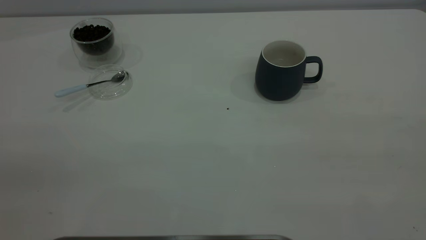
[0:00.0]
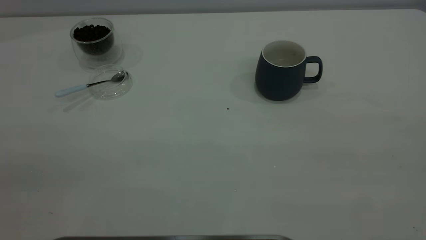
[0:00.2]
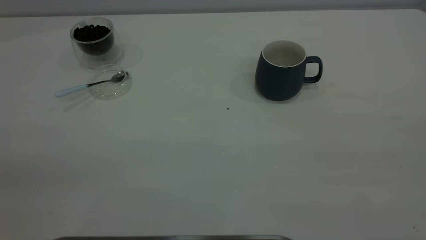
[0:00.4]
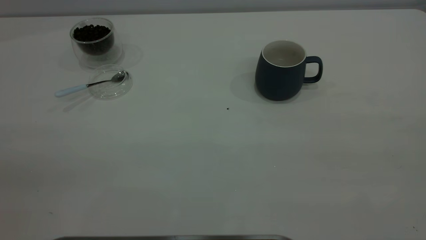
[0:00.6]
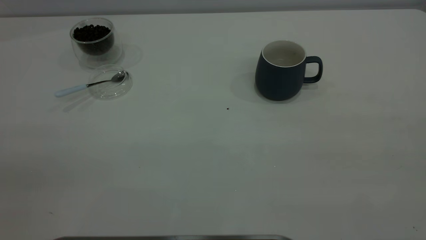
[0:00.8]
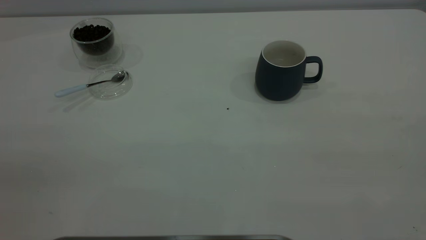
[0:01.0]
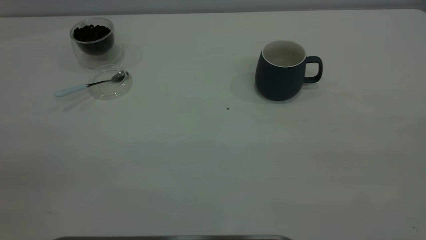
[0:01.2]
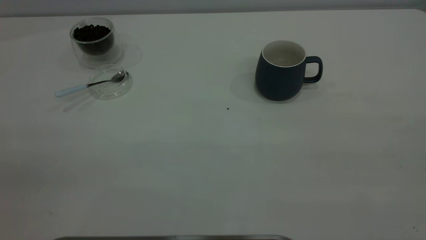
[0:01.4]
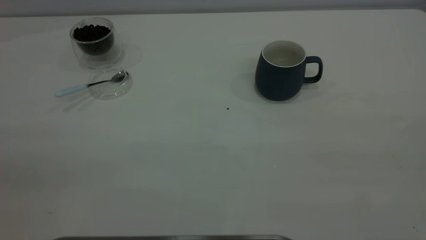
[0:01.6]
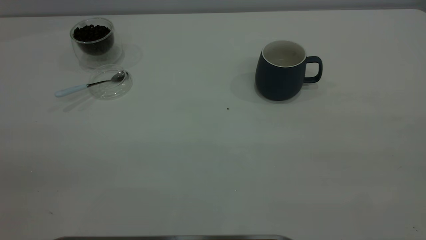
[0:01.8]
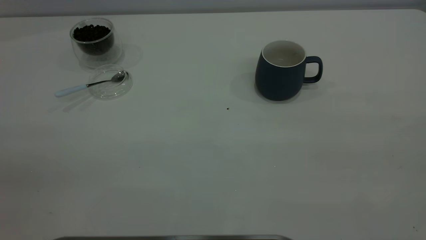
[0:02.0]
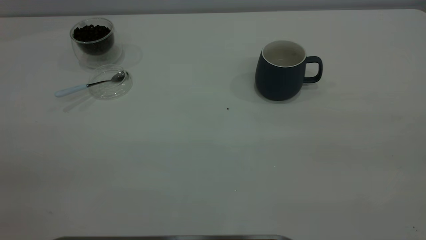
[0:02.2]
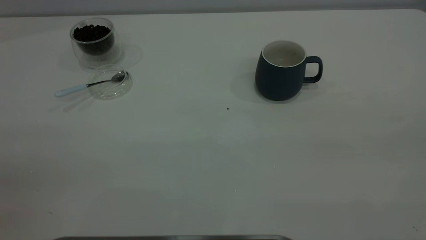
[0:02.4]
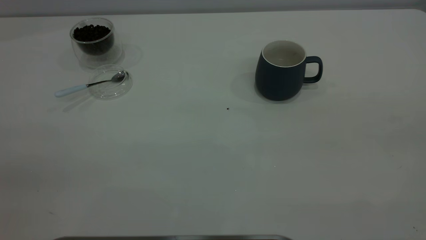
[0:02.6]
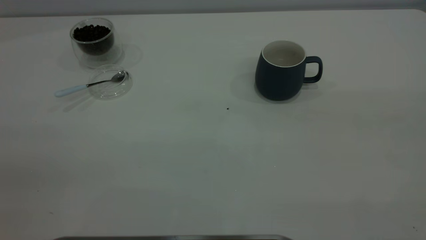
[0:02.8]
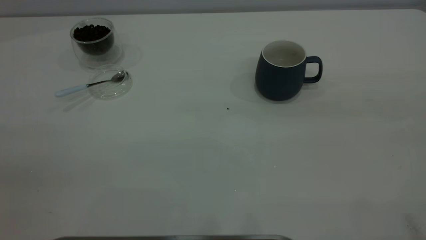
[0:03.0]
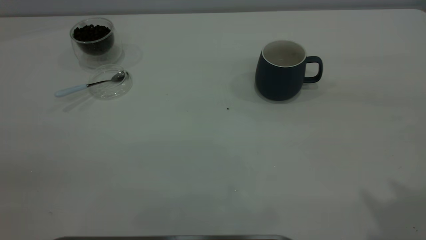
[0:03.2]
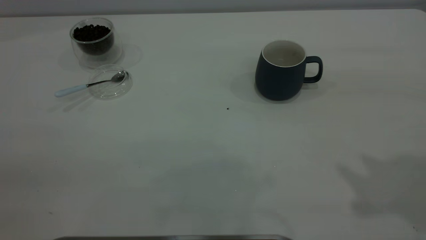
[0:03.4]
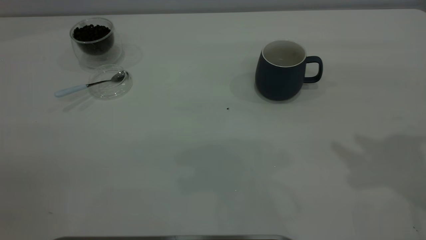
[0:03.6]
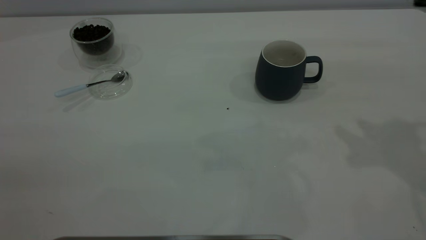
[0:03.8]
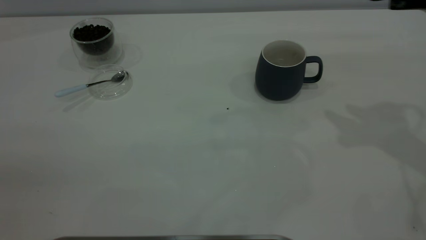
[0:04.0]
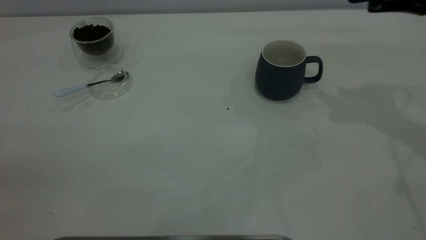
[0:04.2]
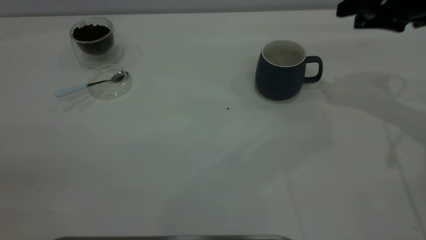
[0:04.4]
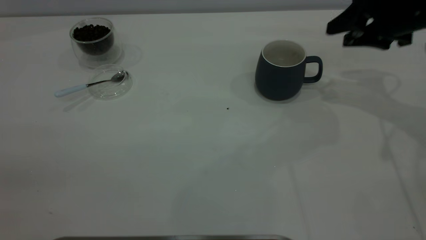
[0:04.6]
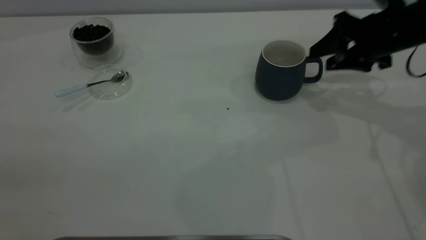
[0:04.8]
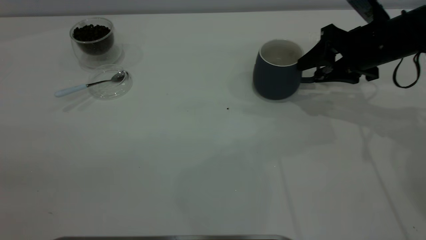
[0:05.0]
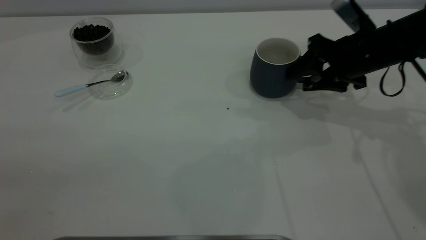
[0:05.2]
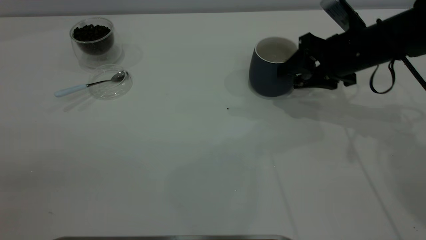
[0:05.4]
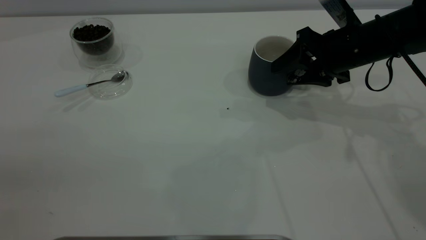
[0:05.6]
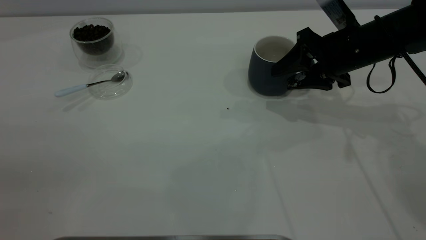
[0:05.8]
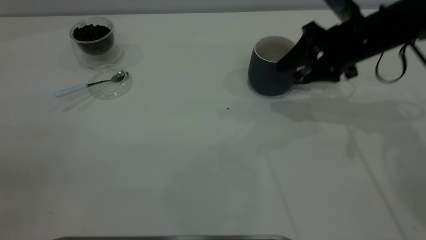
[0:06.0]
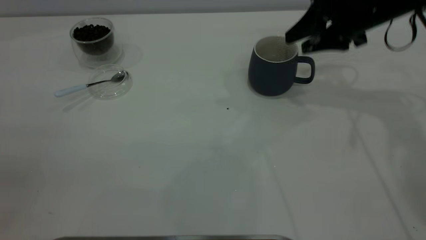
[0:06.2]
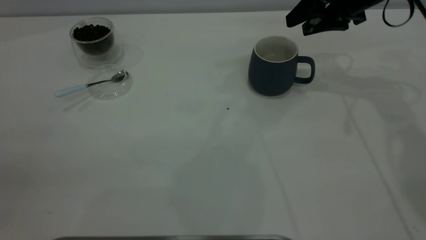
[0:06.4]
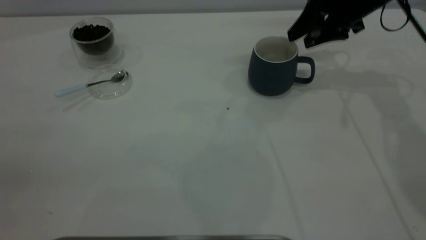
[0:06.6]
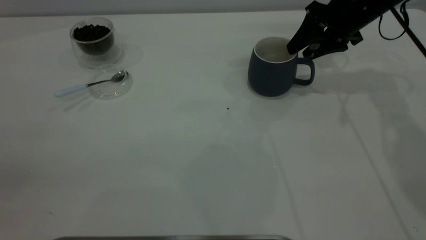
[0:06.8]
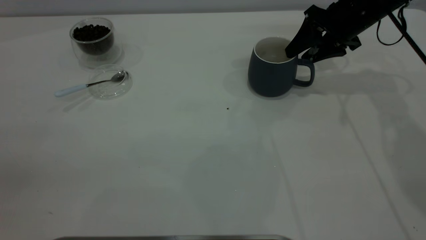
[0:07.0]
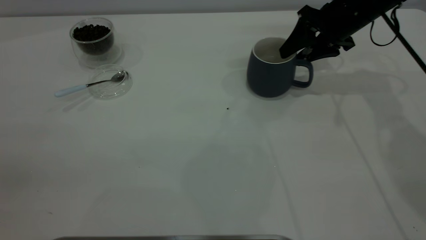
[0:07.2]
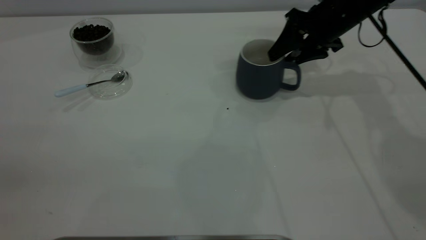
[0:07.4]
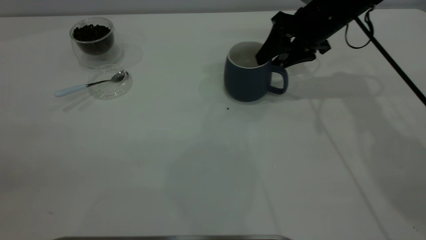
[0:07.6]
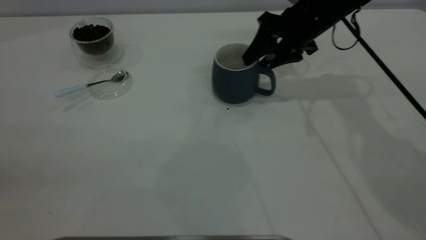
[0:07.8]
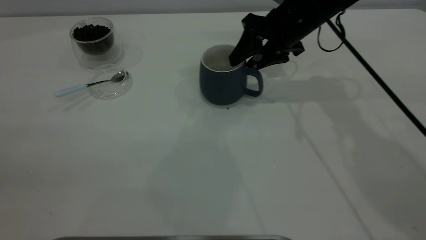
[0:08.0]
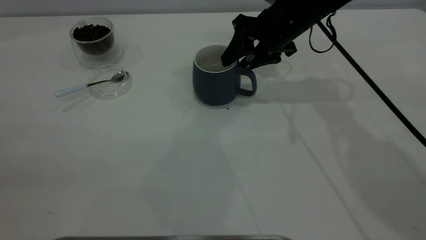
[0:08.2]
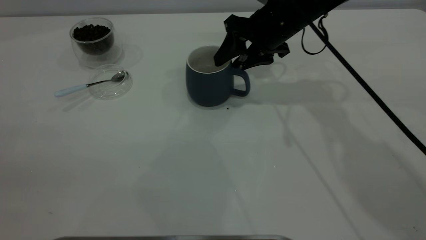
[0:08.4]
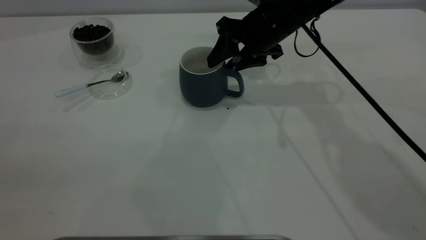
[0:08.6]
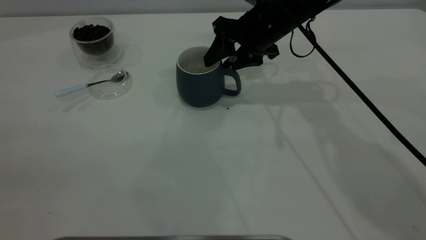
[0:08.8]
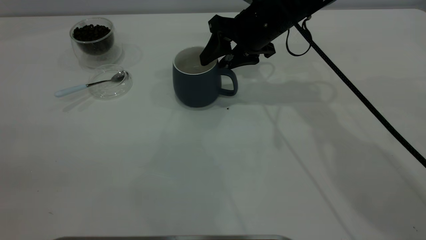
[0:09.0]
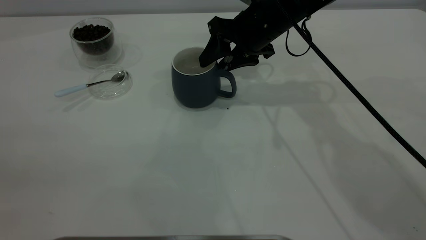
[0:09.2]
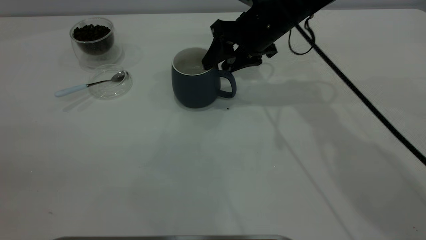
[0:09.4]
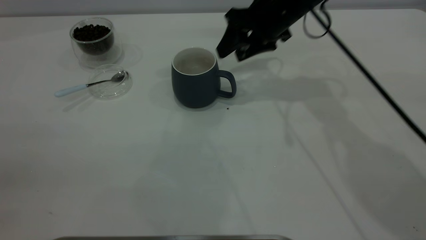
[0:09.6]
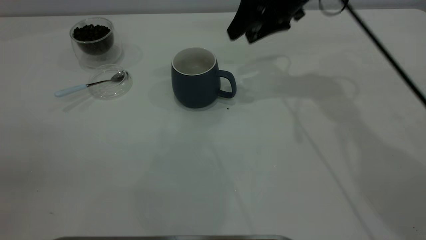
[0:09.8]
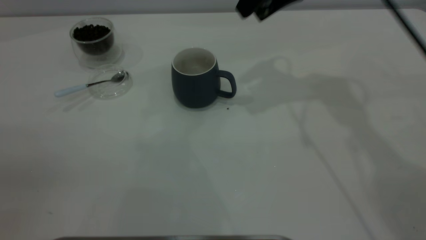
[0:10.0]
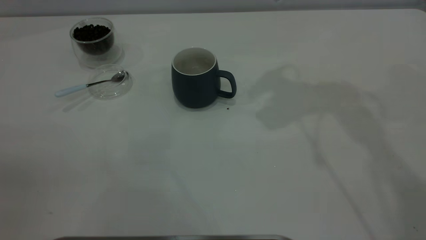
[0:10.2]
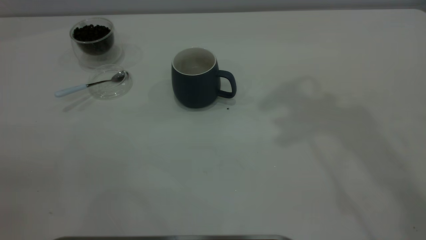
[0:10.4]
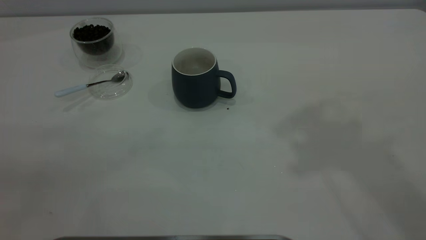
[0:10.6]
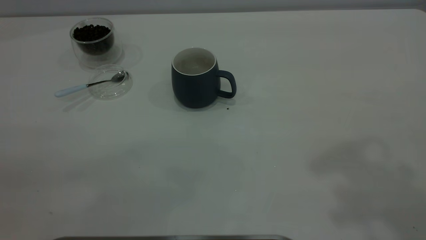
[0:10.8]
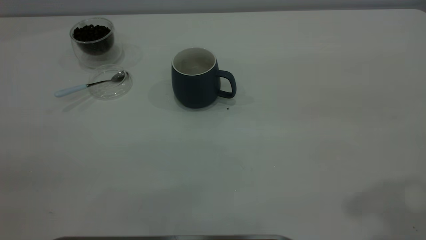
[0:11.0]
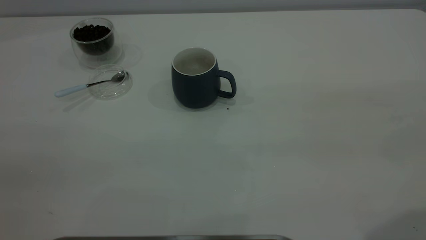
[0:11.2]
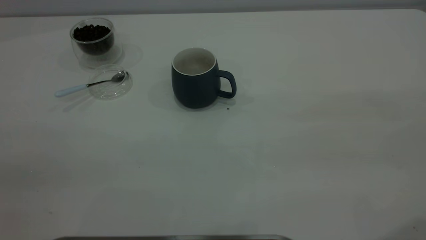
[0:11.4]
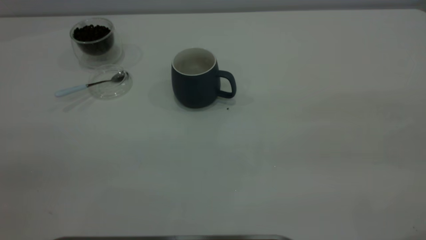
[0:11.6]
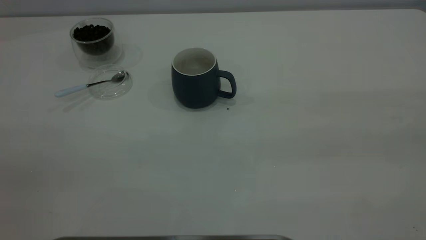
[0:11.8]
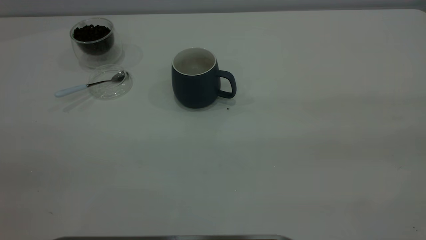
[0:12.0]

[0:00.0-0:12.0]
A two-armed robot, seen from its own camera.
Task of the whole recording: the right gripper place the grey cup in the center of the table, the left gripper take the blue spoon from the cup lid and scoop out the coffee beans from the coffee cup and put them into the grey cup, the left gripper put the spoon back into the cup lid.
Step, 0:00.0 to 0:09.6: Move the cup to the center of view.
0:00.0 to 0:01.6: The two grippers keep their place.
0:03.0 to 0:04.4: The right gripper travels forward and downward by roughly 35 cm.
0:04.4 to 0:06.0: The right gripper goes about 5 cm to the left.
0:06.0 to 0:07.6: The right gripper is displaced forward and to the left by roughly 10 cm.
0:07.6 to 0:09.0: The right gripper travels to the left by some 10 cm.
0:09.0 to 0:10.4: The right gripper heads upward, covering about 30 cm.

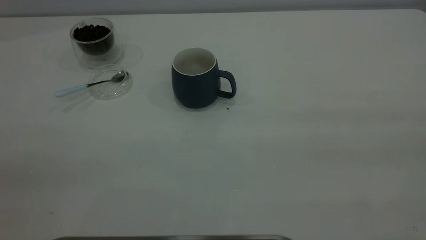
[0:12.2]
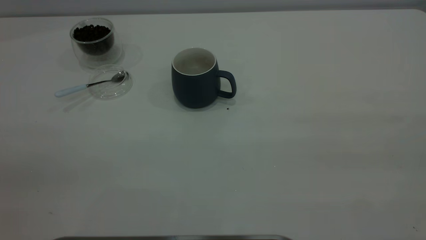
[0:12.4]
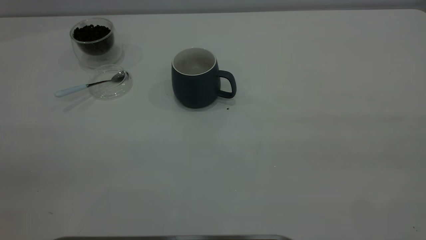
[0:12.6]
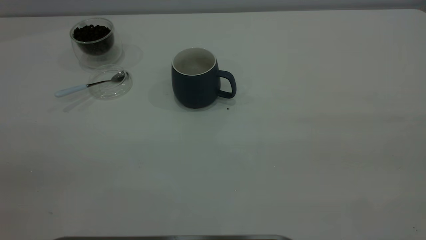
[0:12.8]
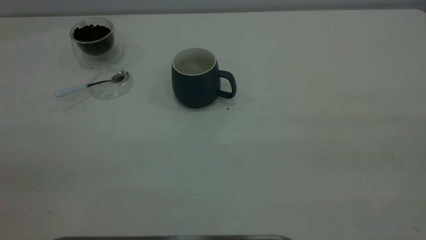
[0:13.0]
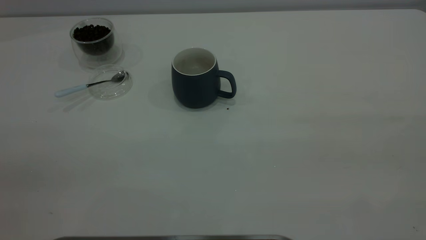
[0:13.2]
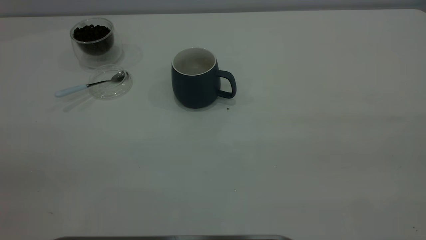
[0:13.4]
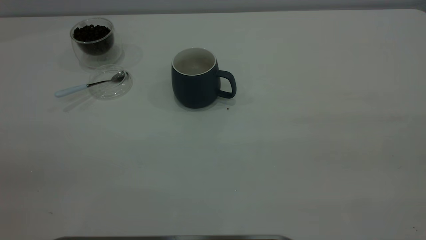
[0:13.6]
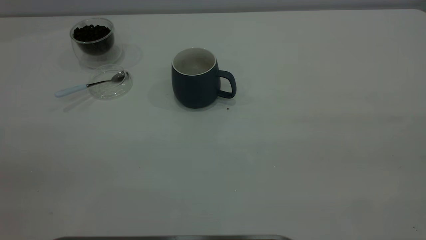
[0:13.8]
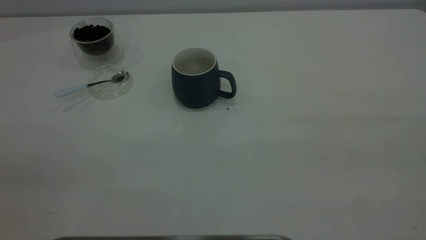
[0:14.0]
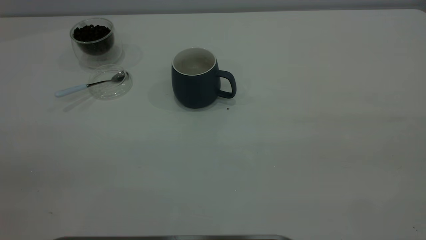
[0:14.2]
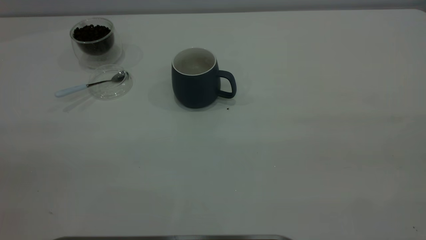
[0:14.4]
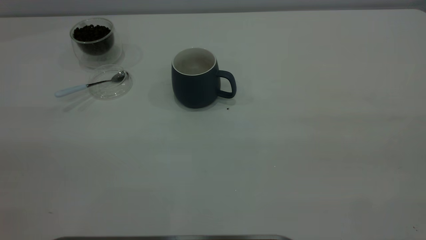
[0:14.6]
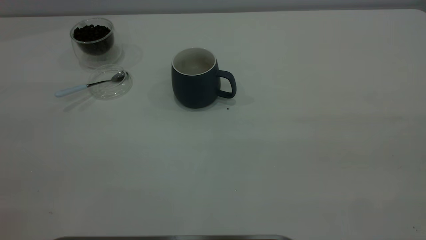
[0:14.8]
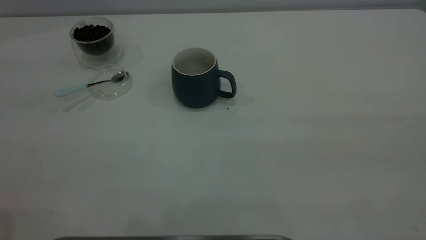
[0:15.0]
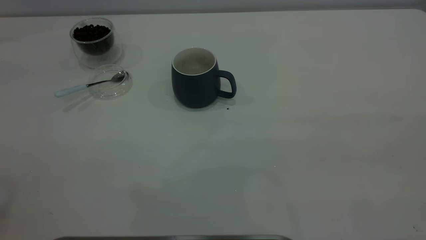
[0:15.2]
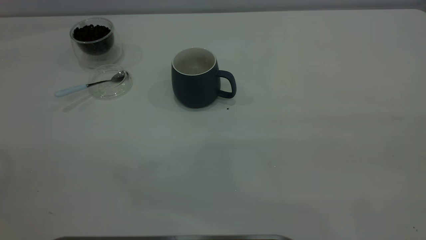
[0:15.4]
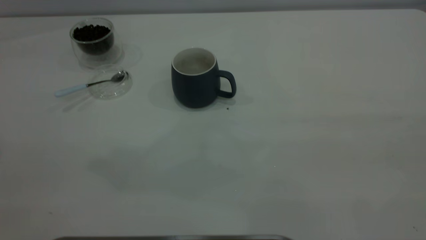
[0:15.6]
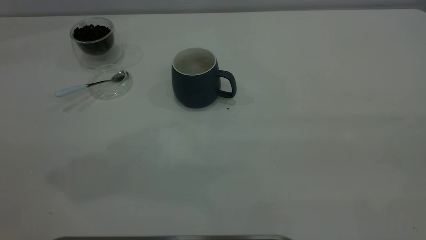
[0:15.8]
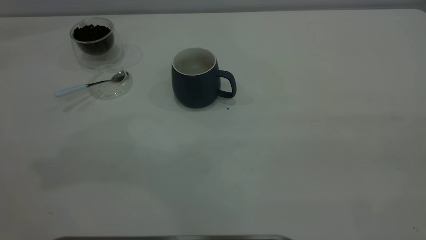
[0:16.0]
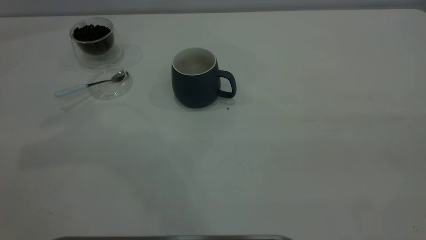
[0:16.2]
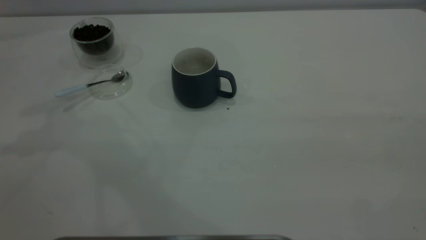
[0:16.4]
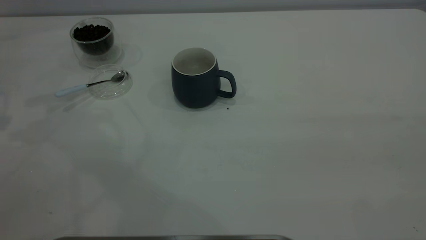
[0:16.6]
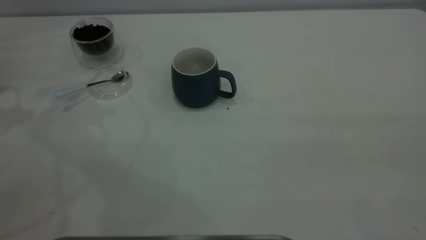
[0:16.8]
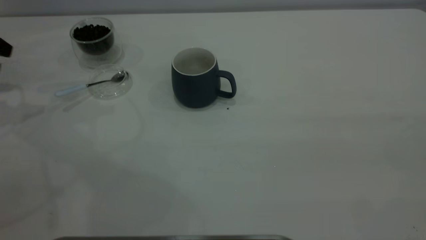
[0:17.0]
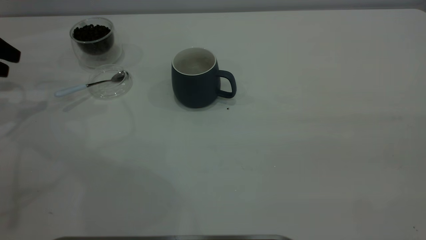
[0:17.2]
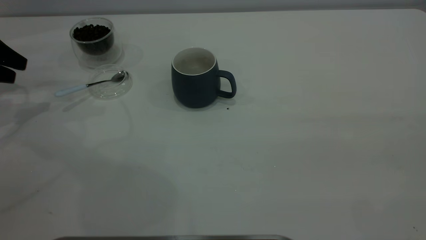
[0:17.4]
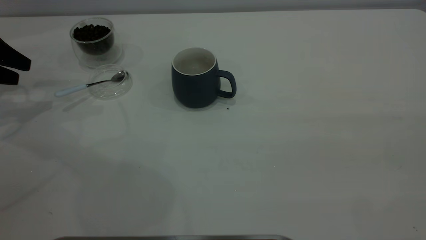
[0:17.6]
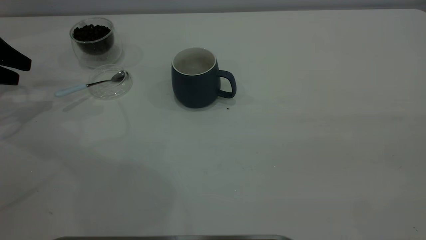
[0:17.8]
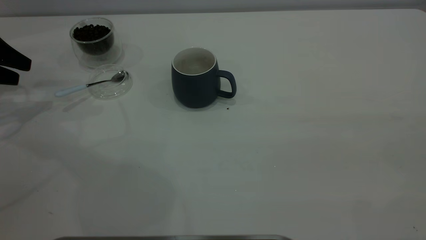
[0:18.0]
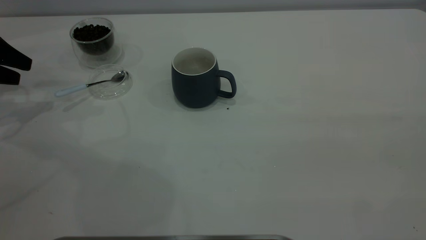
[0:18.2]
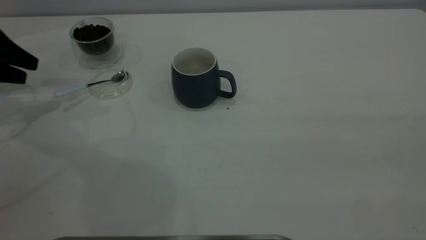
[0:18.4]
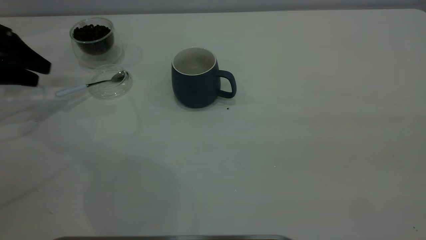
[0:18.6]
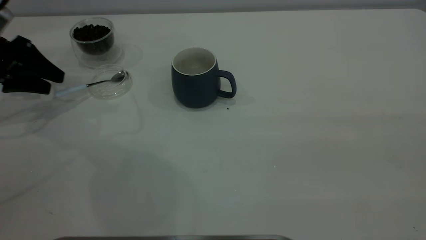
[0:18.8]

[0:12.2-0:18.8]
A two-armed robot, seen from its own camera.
Task of the whole recording: the right gripper place the grey cup in the center of the table, the left gripper take the blue spoon from the cup lid and scoop out the coffee beans from the coffee cup and put them into the grey cup, the left gripper put the spoon back into the cup lid.
0:12.2 to 0:13.8: Both grippers stay about where they are.
0:15.4 to 0:17.2: The left gripper travels downward and forward by approximately 35 cm.
0:17.2 to 0:18.8: The left gripper ends up some 5 cm from where it was.
